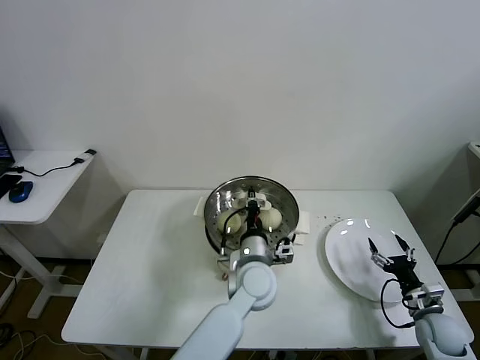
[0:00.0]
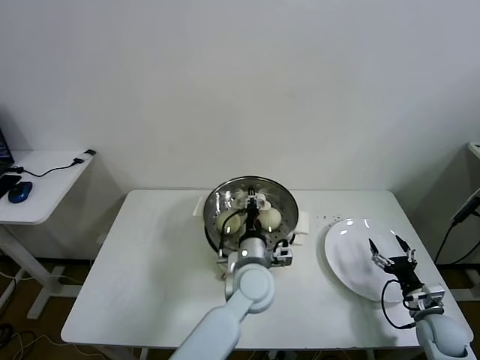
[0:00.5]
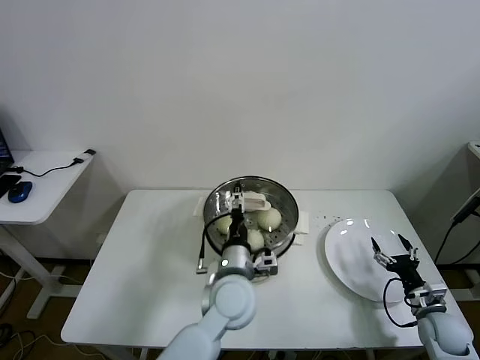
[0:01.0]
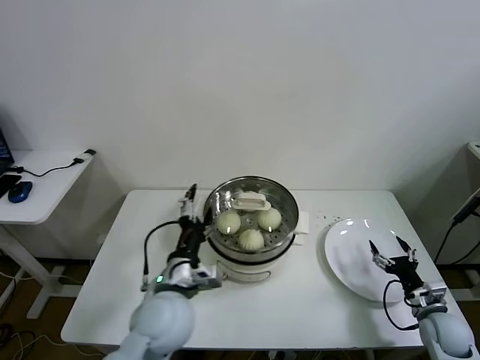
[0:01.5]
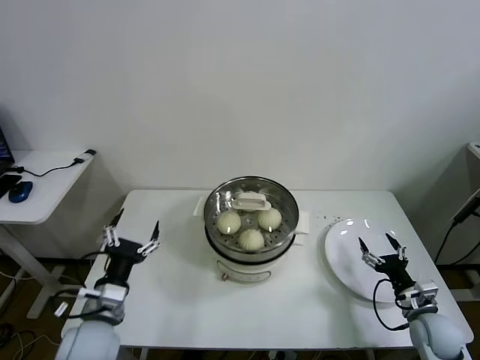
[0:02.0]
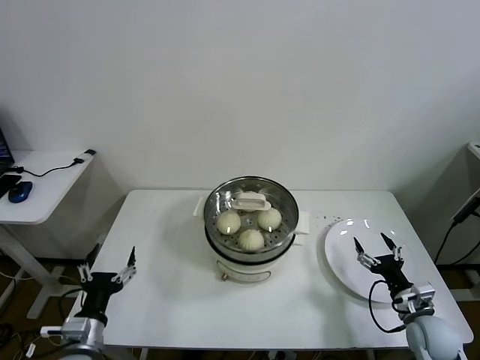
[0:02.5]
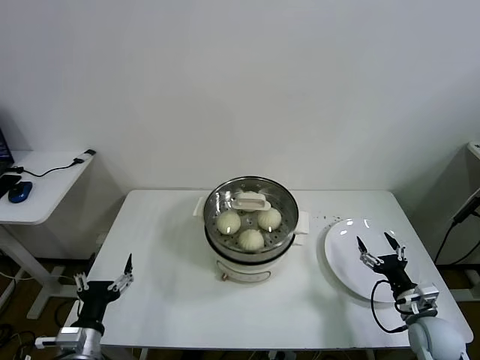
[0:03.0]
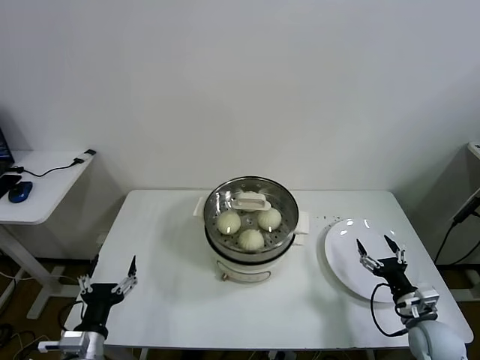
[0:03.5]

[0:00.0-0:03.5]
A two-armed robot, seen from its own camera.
Task of the whole recording: take steamed baozi put them in steamer.
0:00.0 to 0:02.0: The left gripper travels to the left by roughly 30 cm, and opens its fingers.
0:02.0 to 0:03.5: The left gripper heads backward and downward, covering approximately 10 cm.

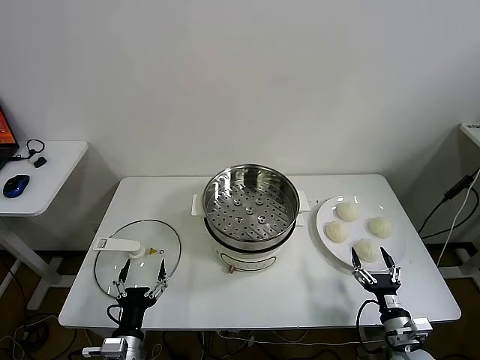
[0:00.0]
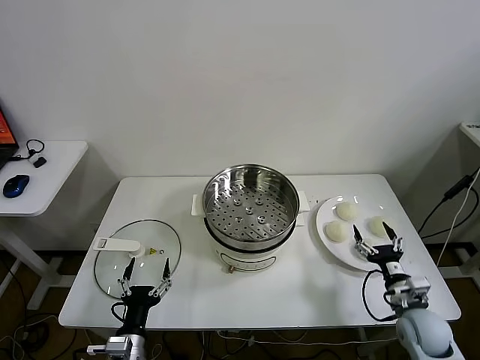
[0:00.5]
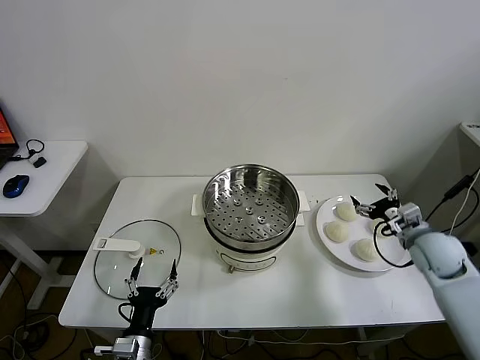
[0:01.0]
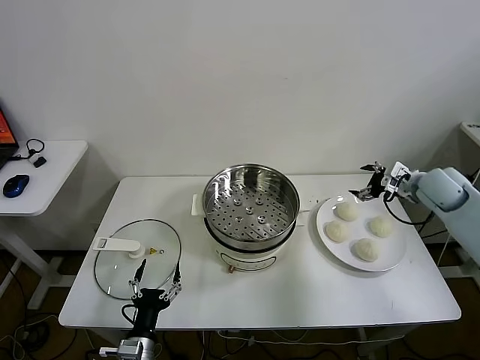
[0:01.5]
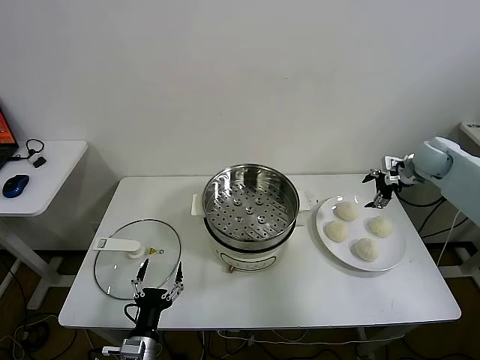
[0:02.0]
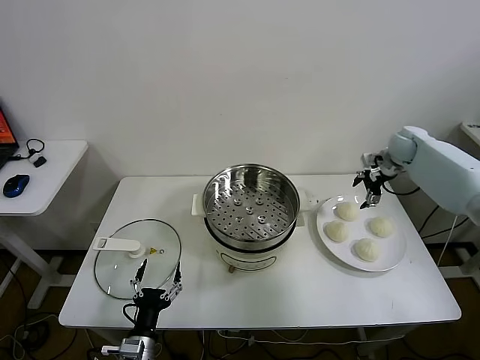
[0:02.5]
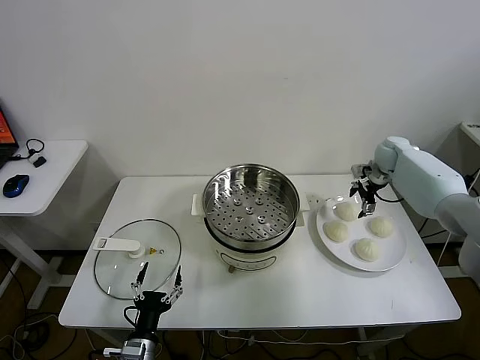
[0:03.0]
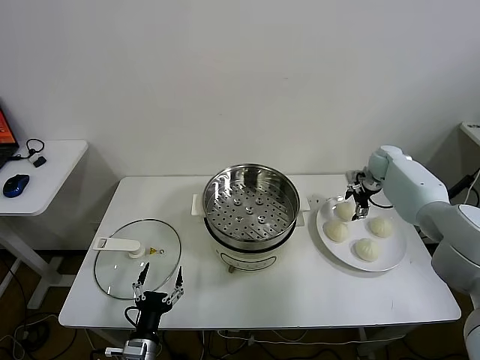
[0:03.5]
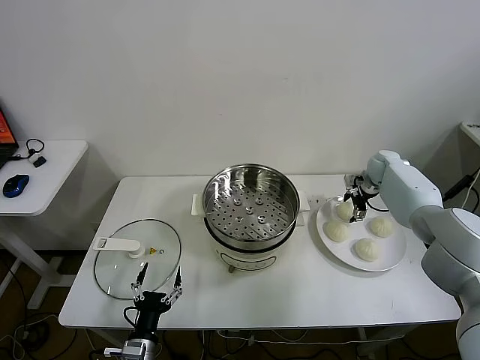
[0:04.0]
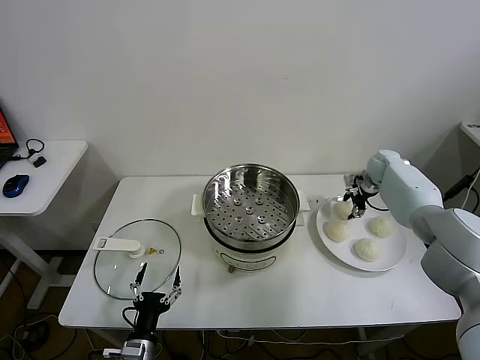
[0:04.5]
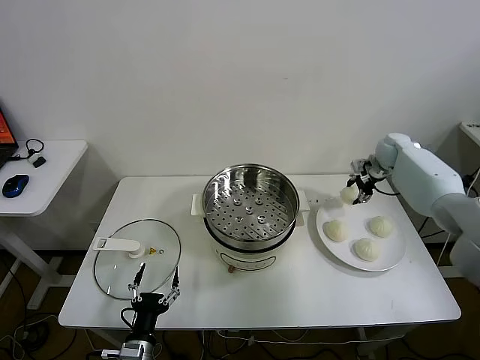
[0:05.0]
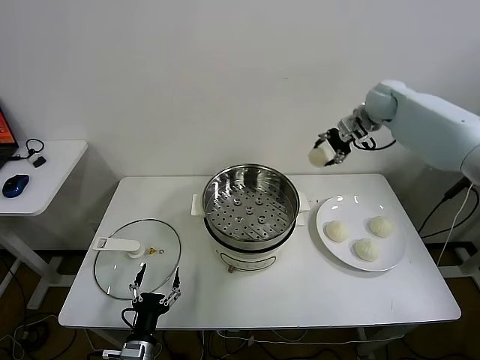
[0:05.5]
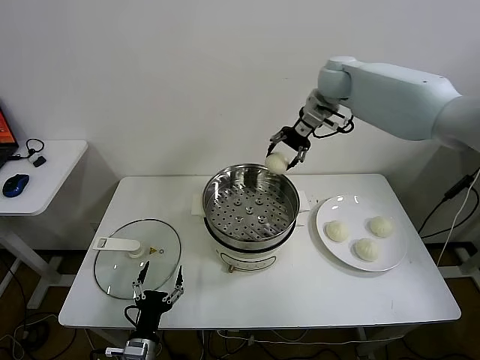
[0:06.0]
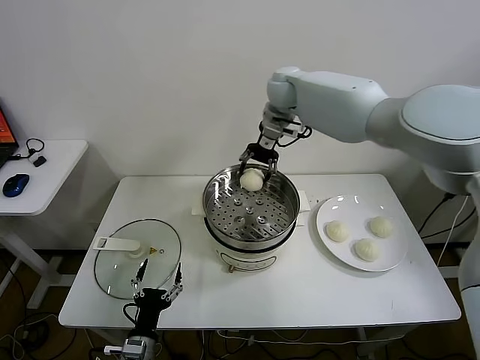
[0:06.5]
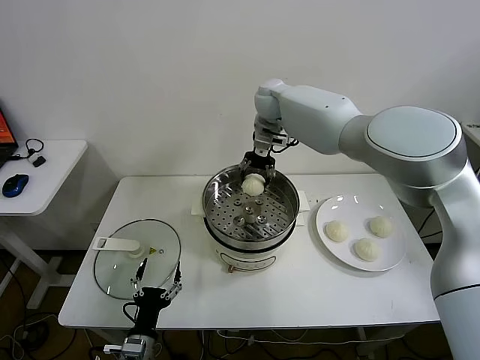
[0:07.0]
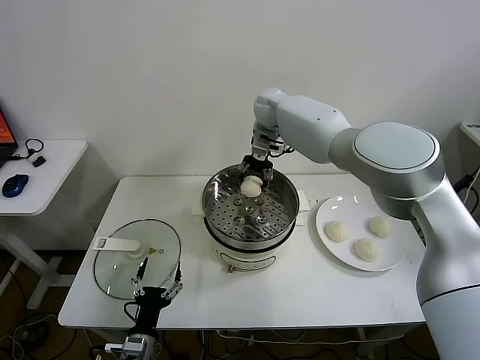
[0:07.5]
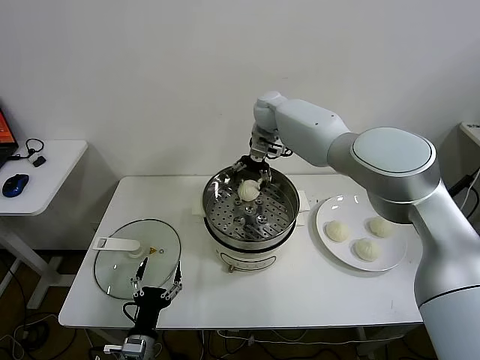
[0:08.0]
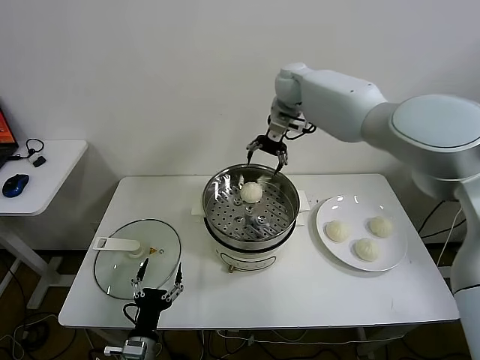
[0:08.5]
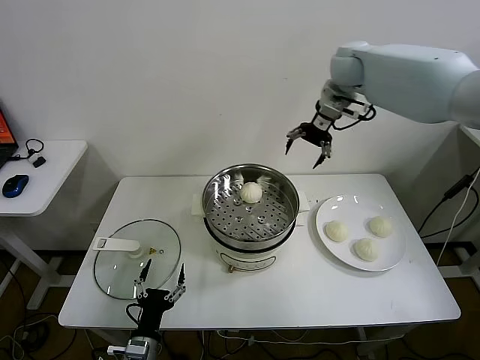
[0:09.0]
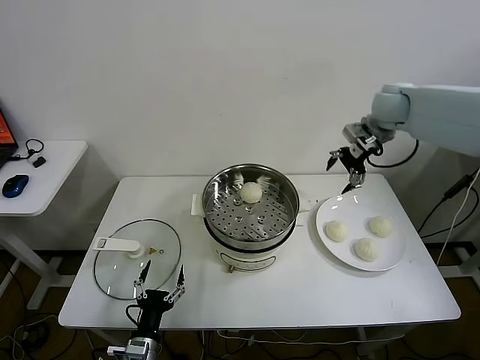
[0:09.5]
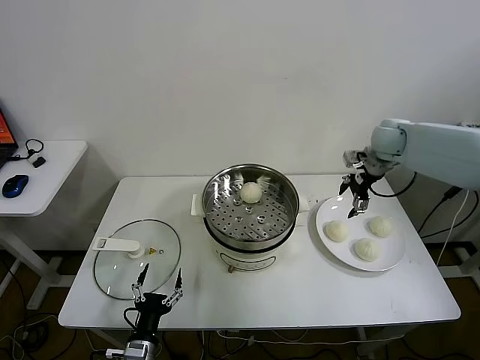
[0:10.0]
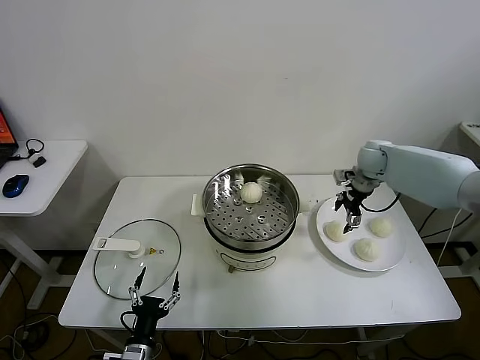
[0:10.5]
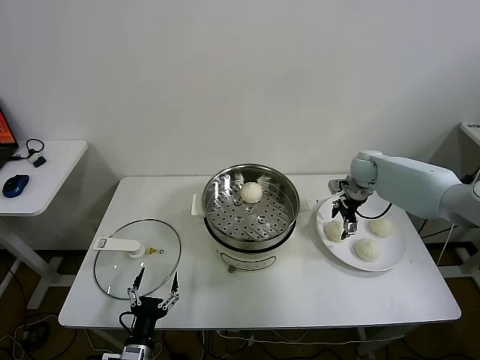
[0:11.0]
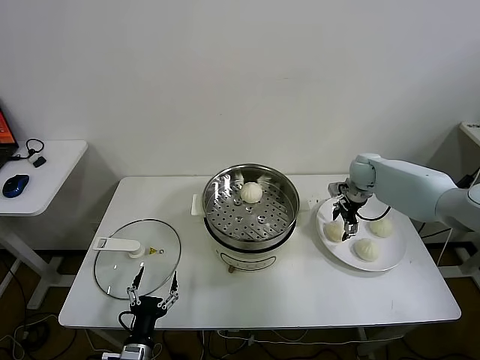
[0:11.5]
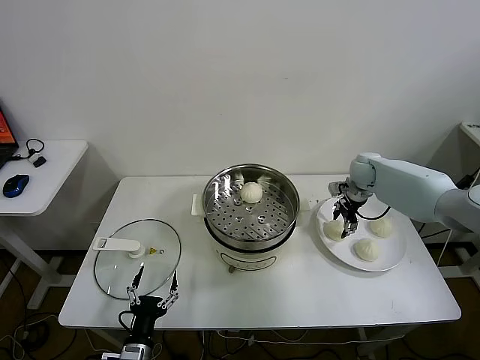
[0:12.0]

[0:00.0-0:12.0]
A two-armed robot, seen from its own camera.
Task of the whole recording: take steamed baozi put them in steamer.
Step, 0:00.0 to 0:04.5: Grasp the baozi in the plate with right gripper.
Step, 0:05.0 to 0:07.5: Place the baozi on the steamer with right gripper.
Step, 0:08.5 to 0:12.0: Grasp the baozi in the plate with right gripper.
0:02.0 to 0:04.0: The right gripper travels downward and forward by approximately 10 cm.
0:04.0 to 0:06.0: The right gripper heads upward and to the left, covering some 35 cm, and closes its fingers.
0:06.0 to 0:08.0: The right gripper is displaced to the left and downward by some 15 cm, and opens its fingers.
0:08.0 to 0:10.0: The right gripper goes roughly 30 cm to the right.
0:10.0 to 0:12.0: The right gripper is displaced downward by roughly 10 cm, and closes up.

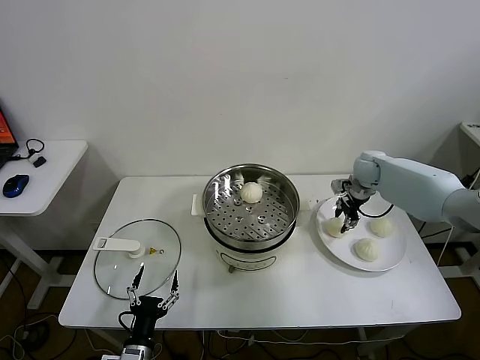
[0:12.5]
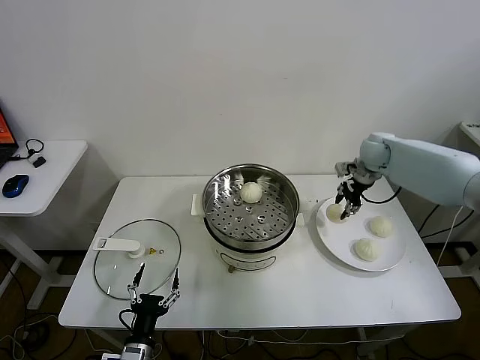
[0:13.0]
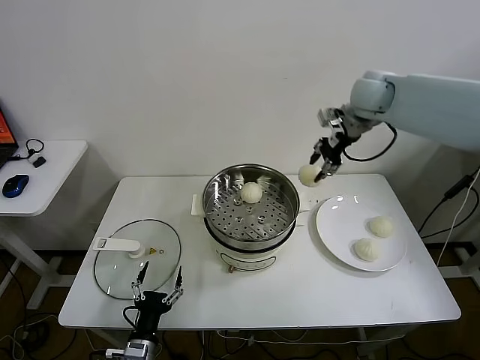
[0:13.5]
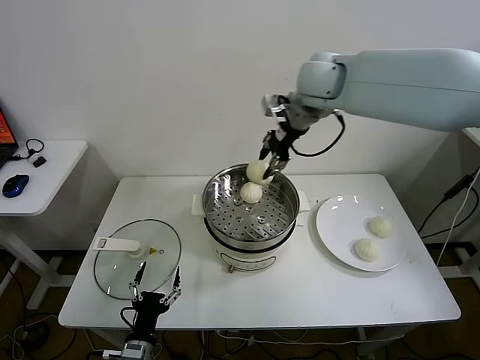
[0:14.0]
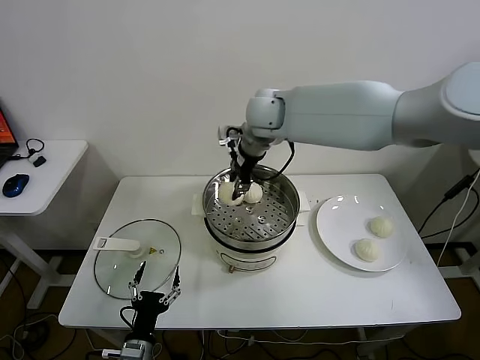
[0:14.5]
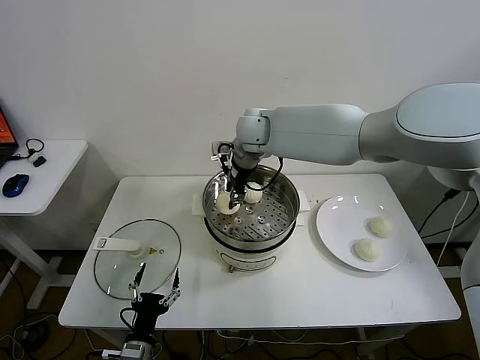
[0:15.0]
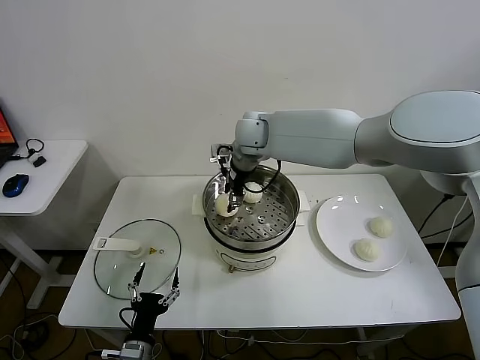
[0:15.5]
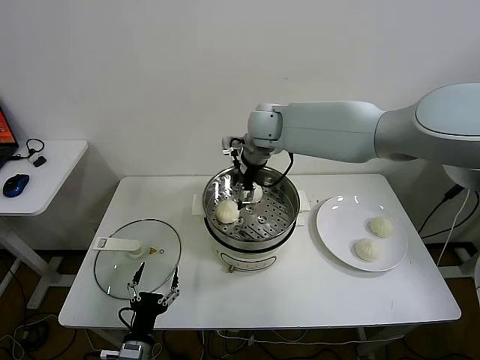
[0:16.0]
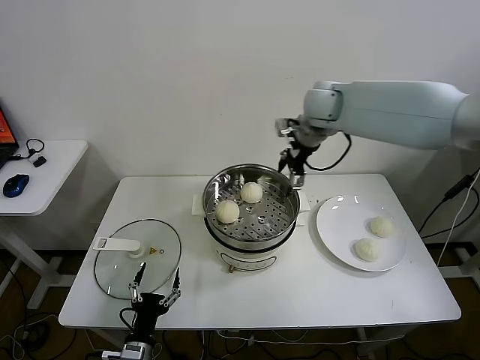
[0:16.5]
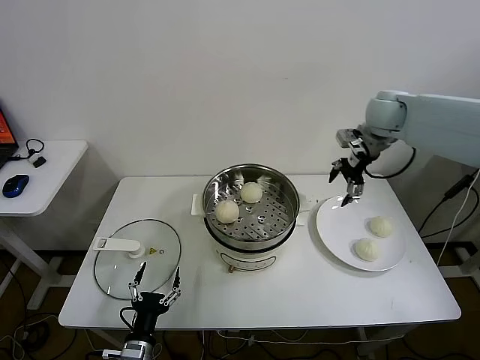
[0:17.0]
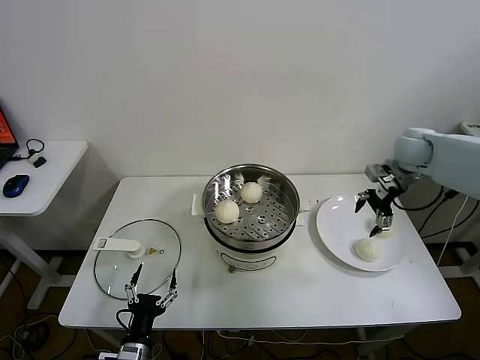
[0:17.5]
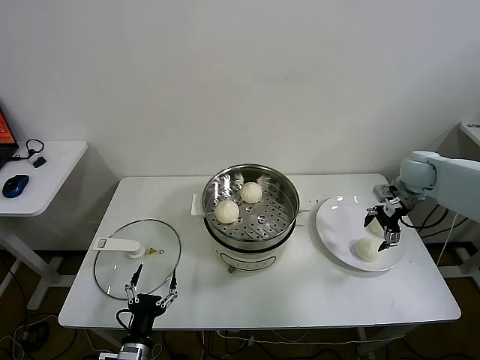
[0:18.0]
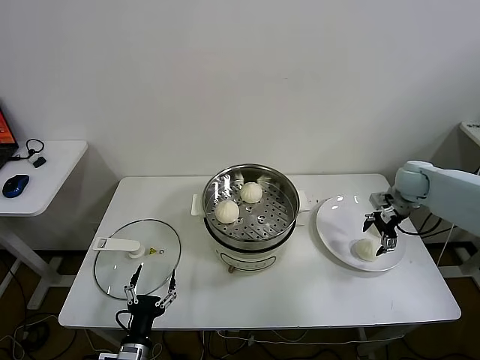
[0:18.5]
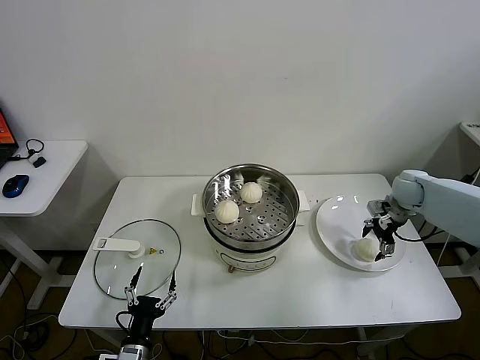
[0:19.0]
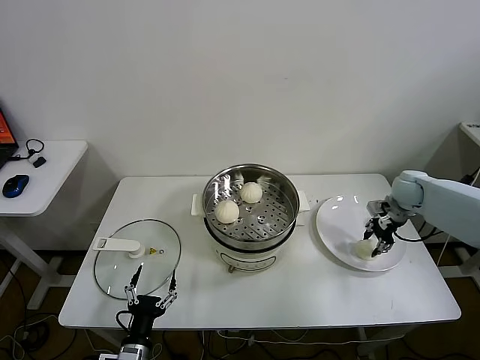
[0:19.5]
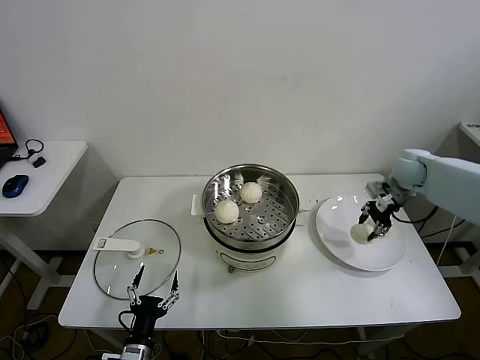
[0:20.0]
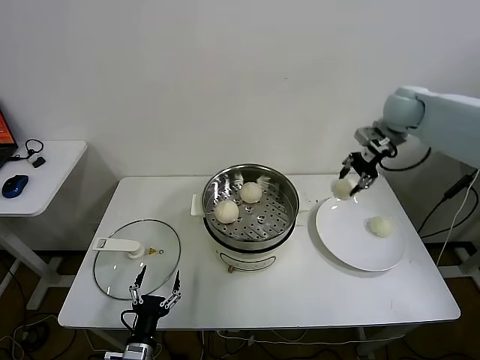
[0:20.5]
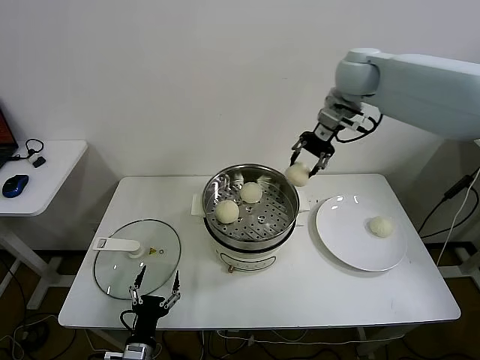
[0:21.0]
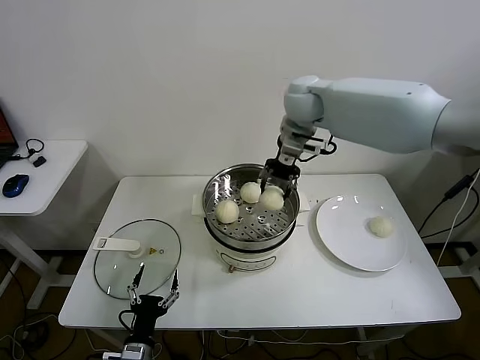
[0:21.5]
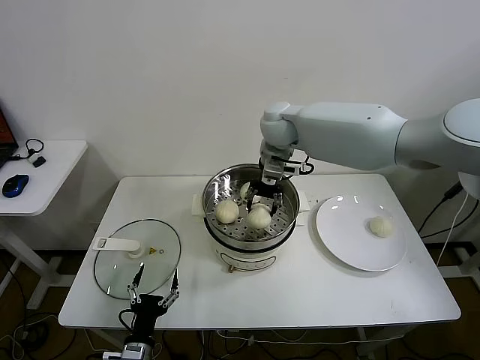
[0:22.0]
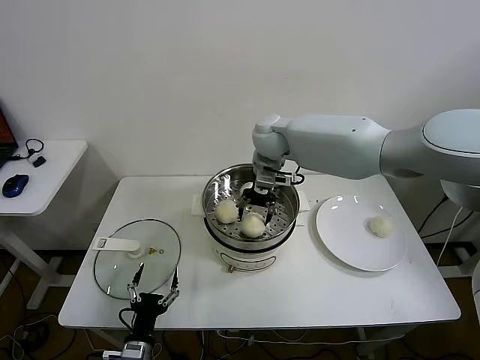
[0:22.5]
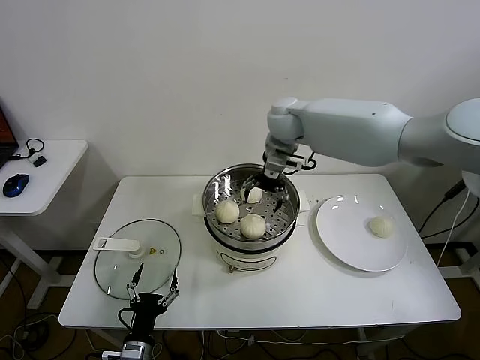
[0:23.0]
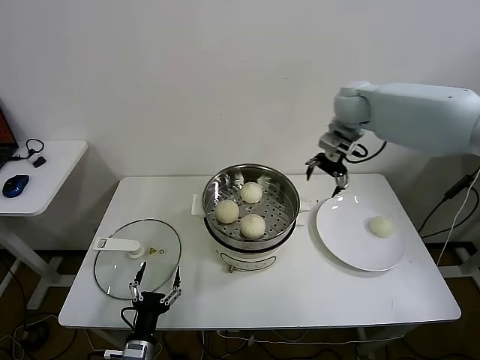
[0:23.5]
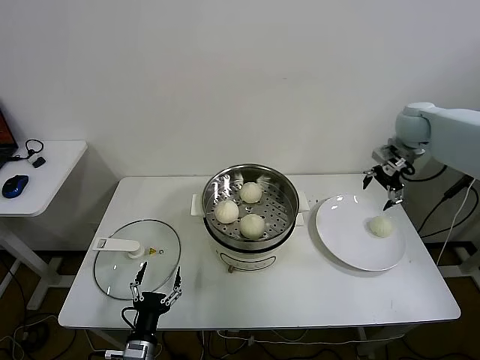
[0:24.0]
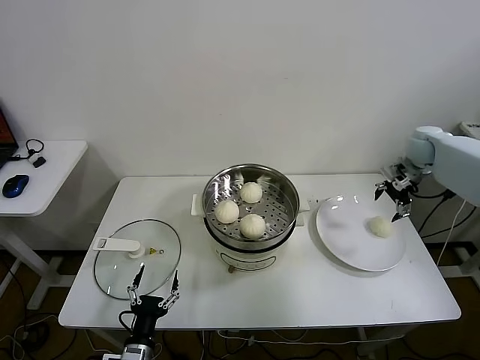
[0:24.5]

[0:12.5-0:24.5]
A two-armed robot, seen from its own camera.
Task of the whole recording: take steamed baozi put them in steamer.
Step, 0:12.5 to 0:15.5: Place the baozi on the steamer with right gripper.
Step, 0:16.0 to 0:19.5: Grasp the baozi in the plate with right gripper.
Step, 0:20.0 to 0:22.5: Place the baozi on the steamer with right gripper.
0:12.5 to 0:14.5: The right gripper heads to the left and upward, covering about 35 cm.
0:14.5 to 0:16.5: The right gripper heads to the right, covering roughly 15 cm, and opens.
0:16.5 to 0:18.5: The right gripper is displaced to the right and downward by about 30 cm.
0:18.5 to 0:20.5: The right gripper shifts roughly 20 cm upward and to the left, and closes.
0:20.5 to 0:22.5: The right gripper is displaced to the left by approximately 30 cm, and opens its fingers.
0:22.5 to 0:24.5: The right gripper goes about 40 cm to the right, and opens up.
